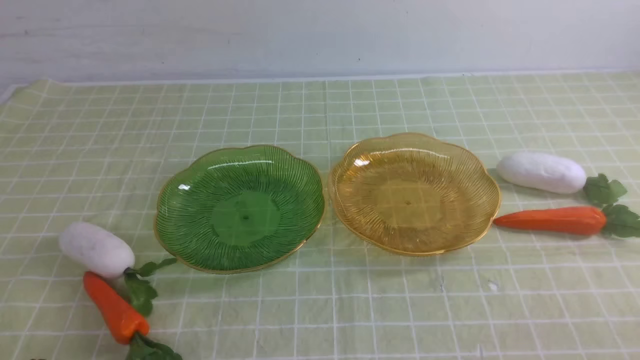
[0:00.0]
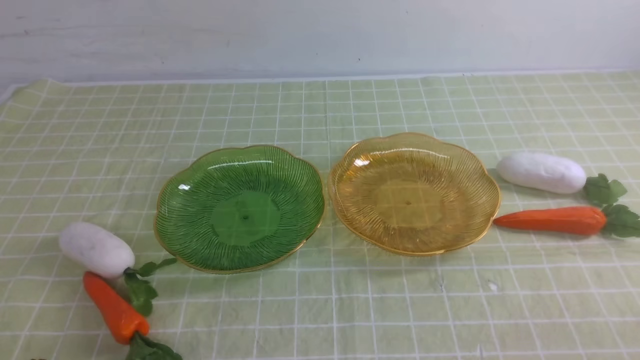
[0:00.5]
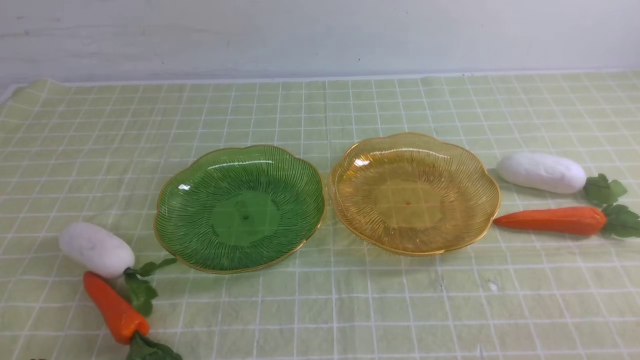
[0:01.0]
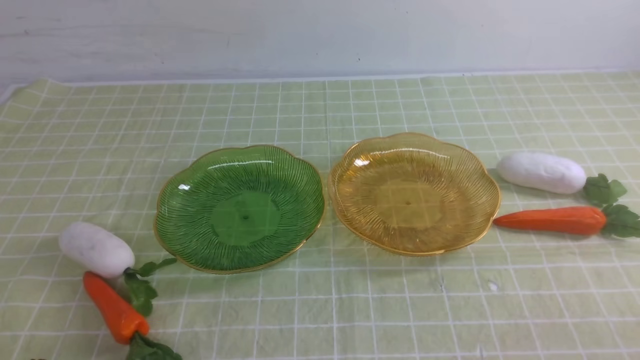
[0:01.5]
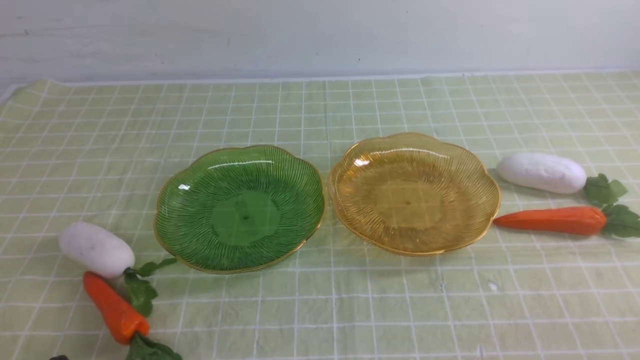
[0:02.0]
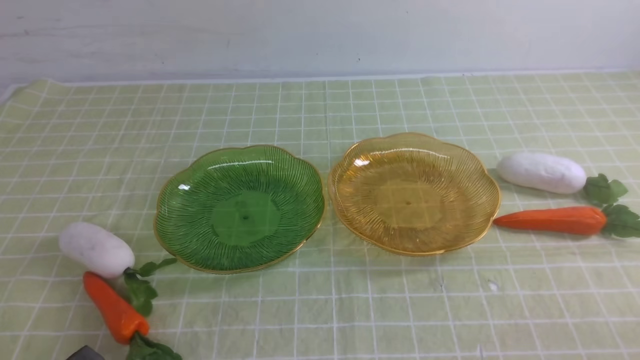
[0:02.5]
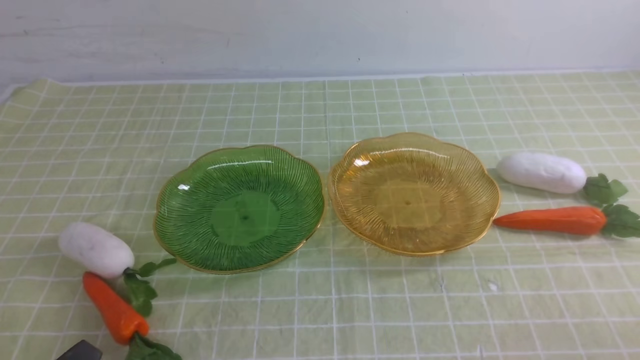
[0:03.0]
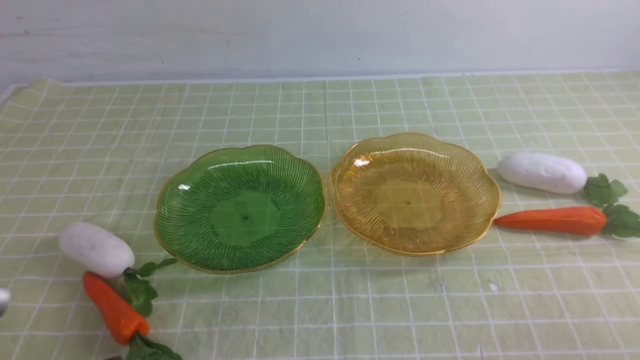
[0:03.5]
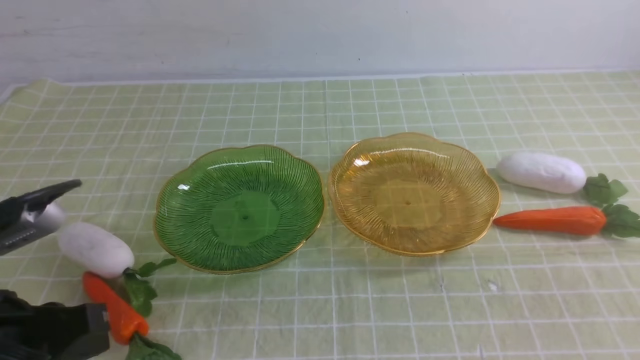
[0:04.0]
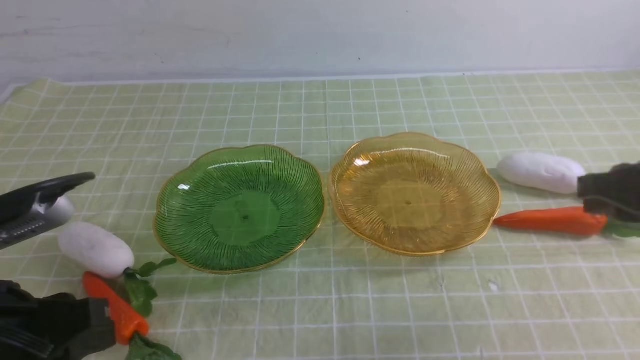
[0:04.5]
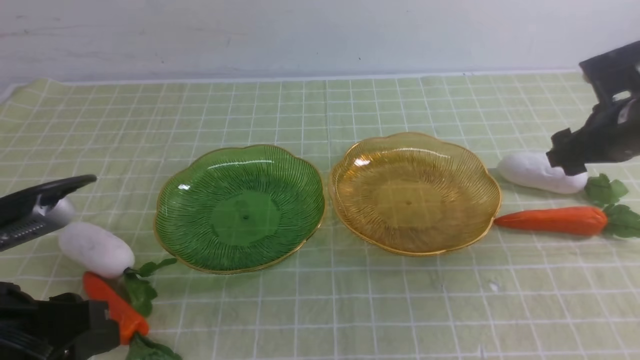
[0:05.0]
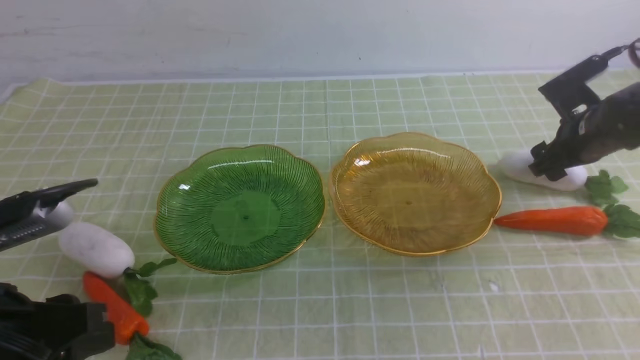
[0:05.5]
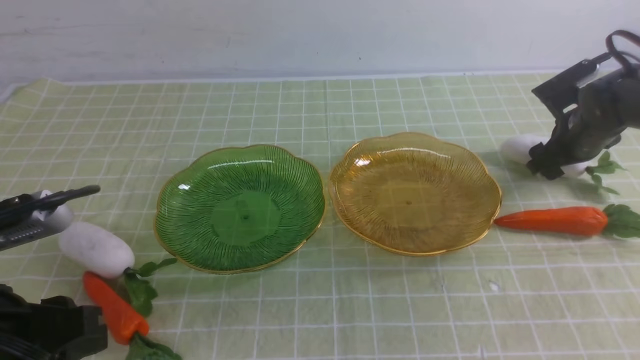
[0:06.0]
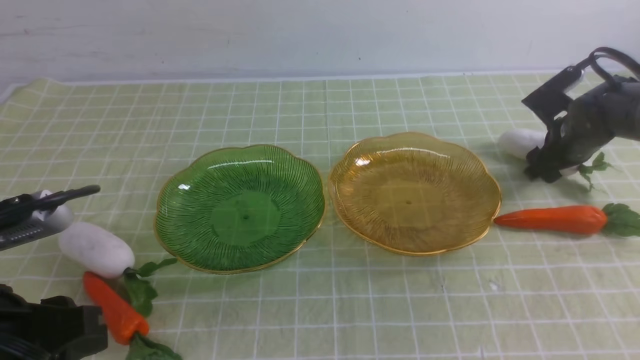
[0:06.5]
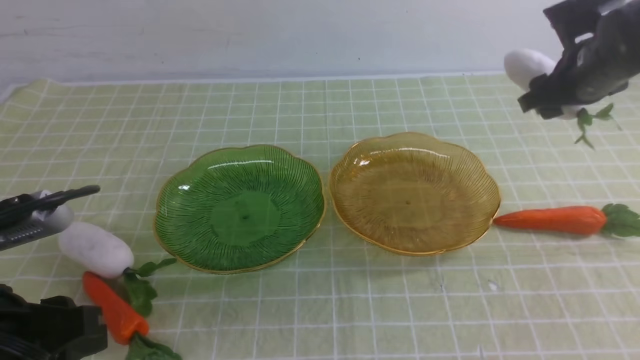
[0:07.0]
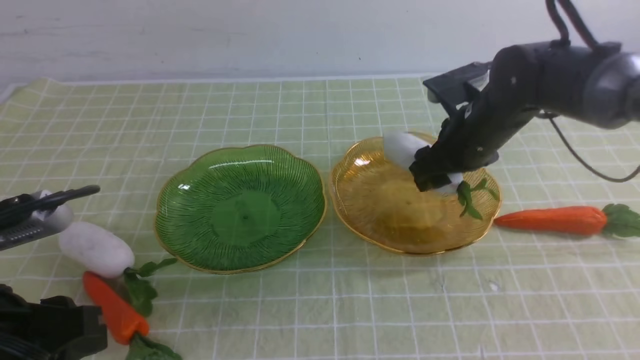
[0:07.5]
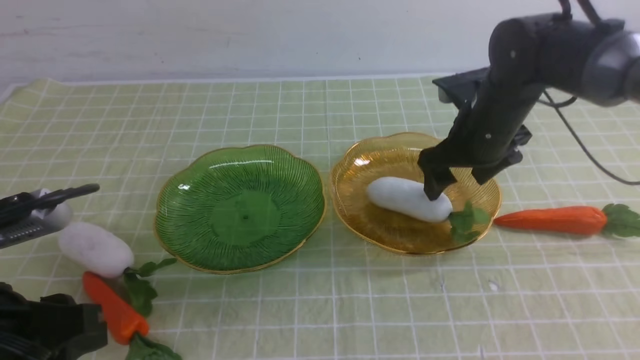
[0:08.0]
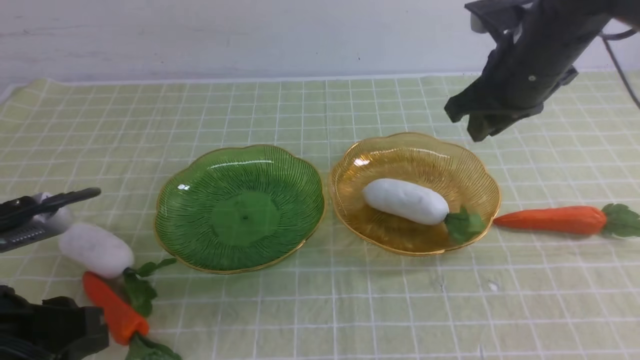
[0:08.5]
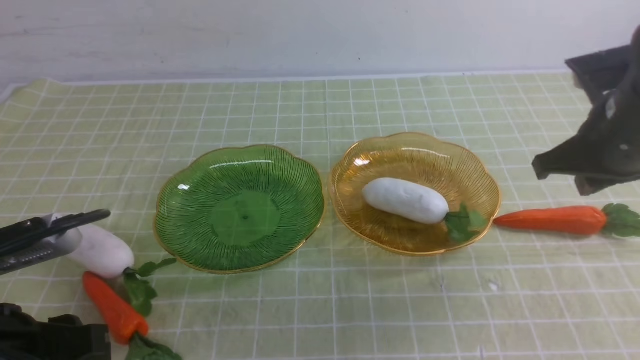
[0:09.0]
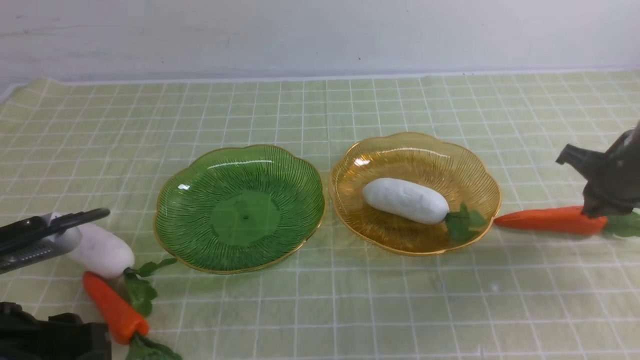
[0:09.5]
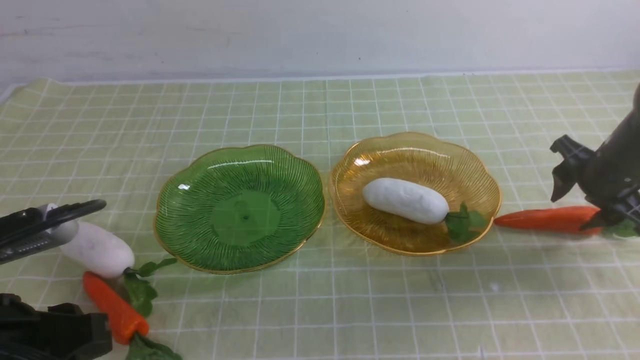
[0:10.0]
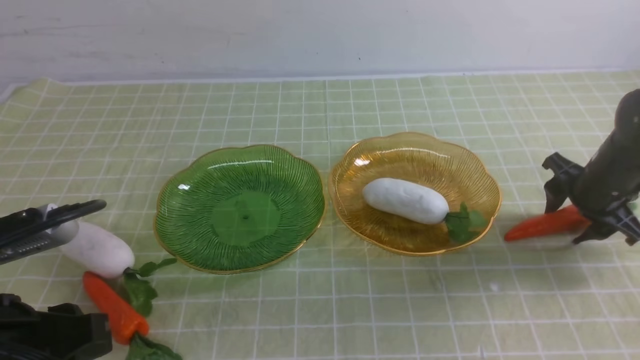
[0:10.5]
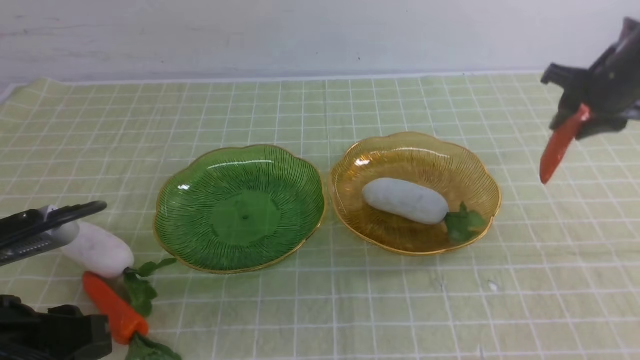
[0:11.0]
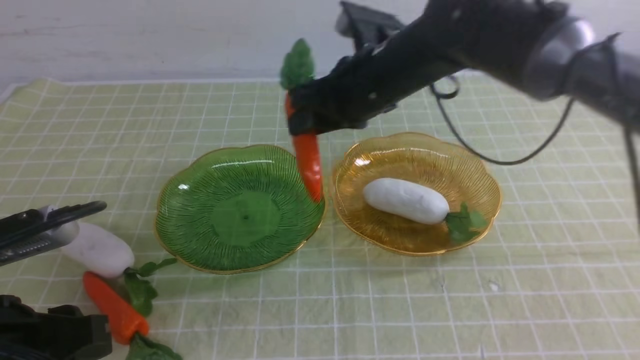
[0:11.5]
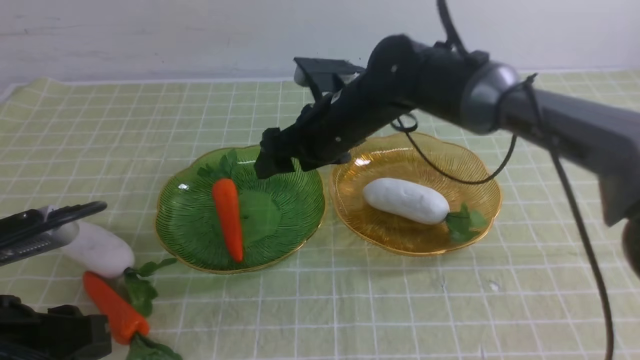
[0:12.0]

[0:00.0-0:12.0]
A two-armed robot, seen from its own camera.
Step, 0:00.0 to 0:08.5: use the right arm to grab a radish and put it into the right plate.
0:02.0 to 0:04.0: The left gripper travels upward and forward by some 10 cm.
0:04.0 to 0:06.0: The right gripper shifts some 35 cm forward, and opens. The left gripper opens.
0:06.0 to 0:08.0: The right gripper moves to the left and upward, some 20 cm.
0:08.0 to 0:10.0: The right gripper travels to the right and downward by some 15 cm, and closes and opens again.
0:10.0 to 0:12.0: The right gripper moves to the left, about 30 cm.

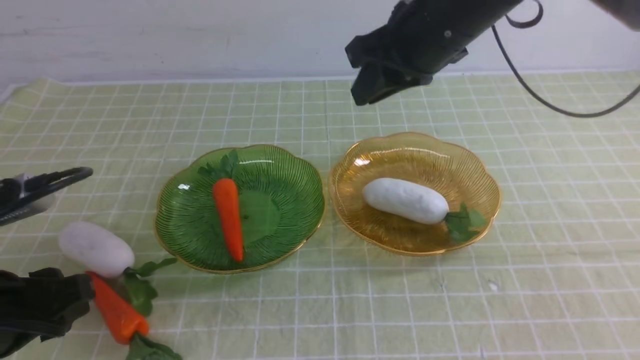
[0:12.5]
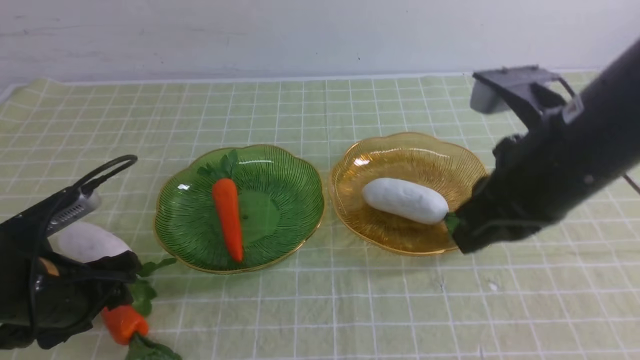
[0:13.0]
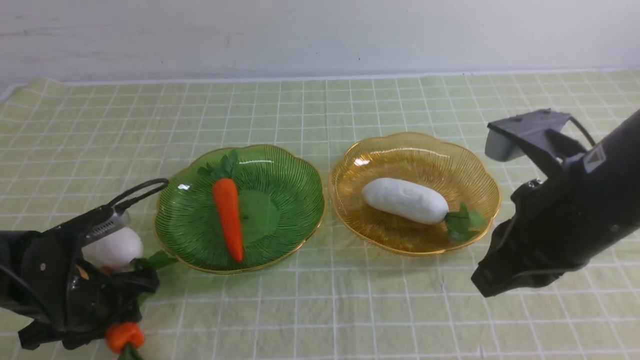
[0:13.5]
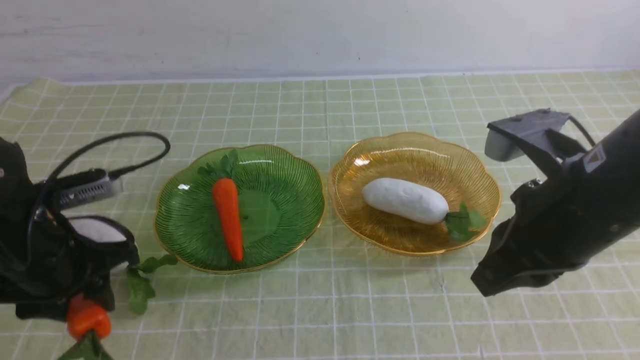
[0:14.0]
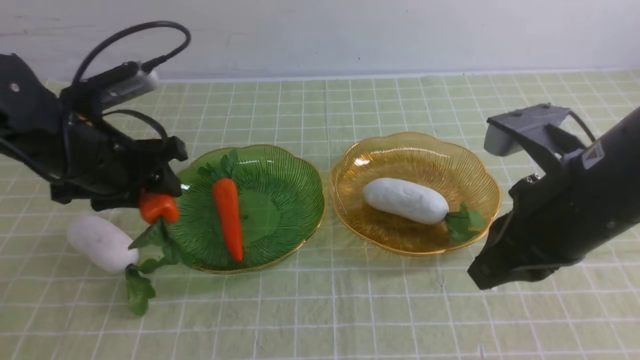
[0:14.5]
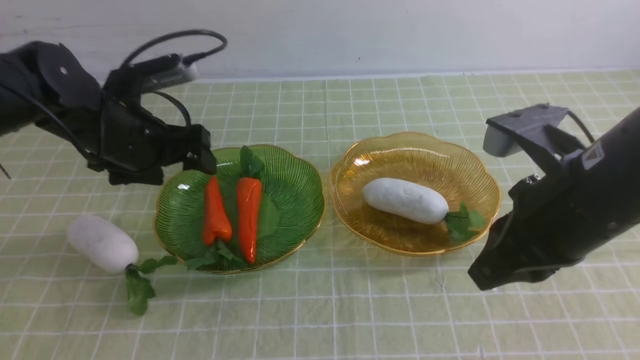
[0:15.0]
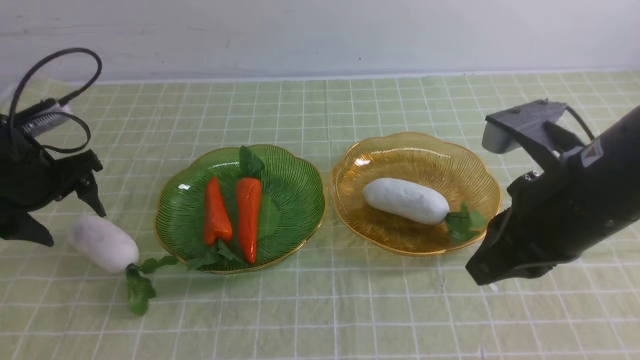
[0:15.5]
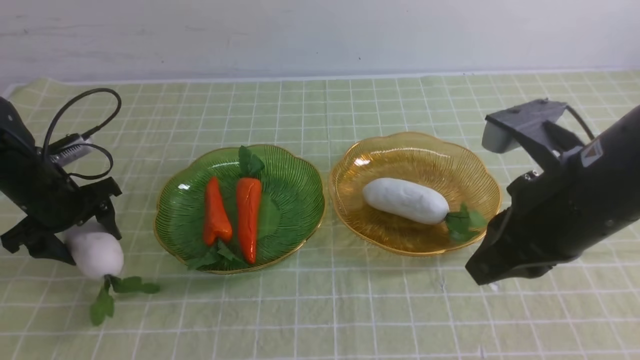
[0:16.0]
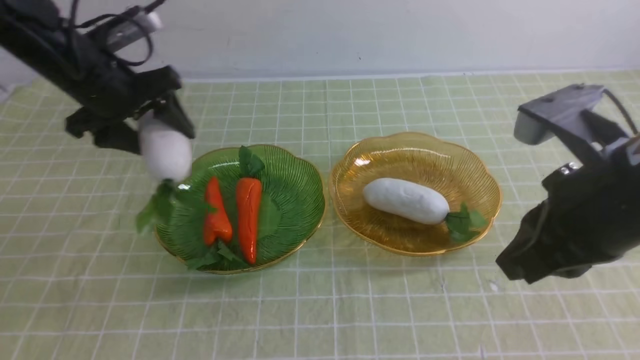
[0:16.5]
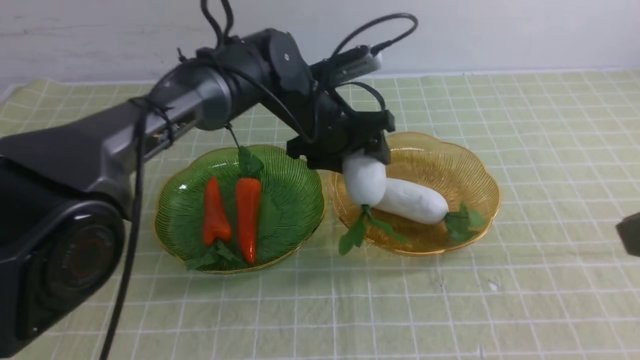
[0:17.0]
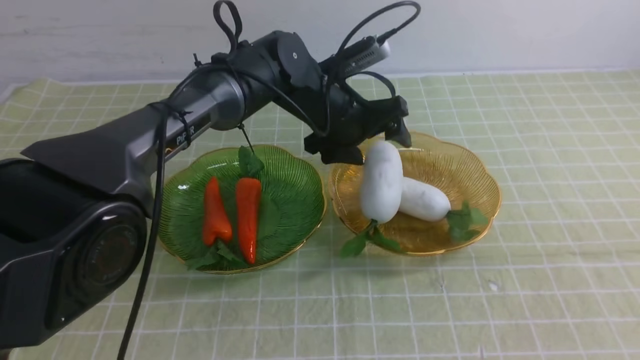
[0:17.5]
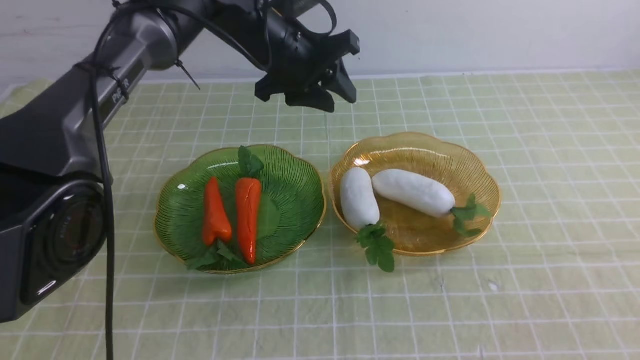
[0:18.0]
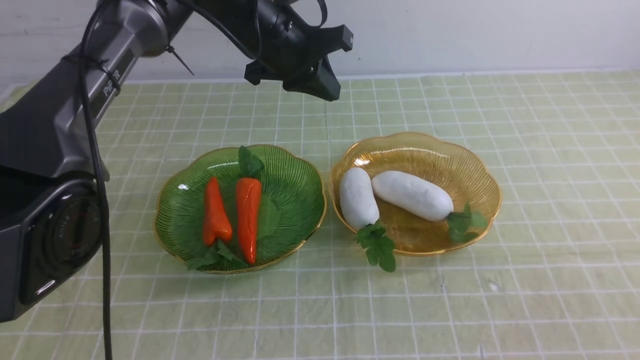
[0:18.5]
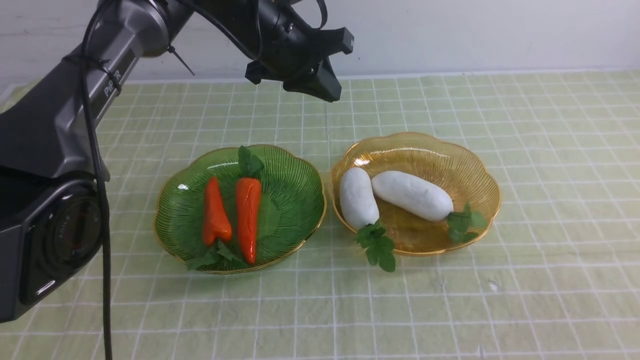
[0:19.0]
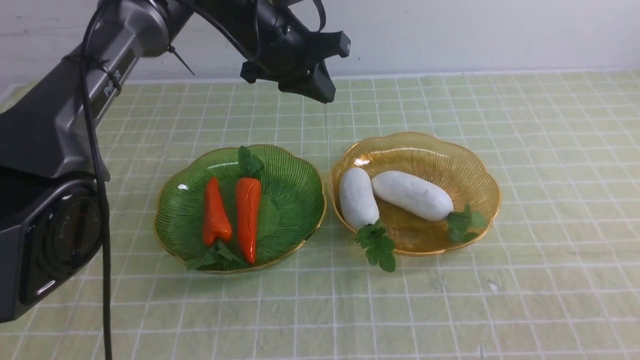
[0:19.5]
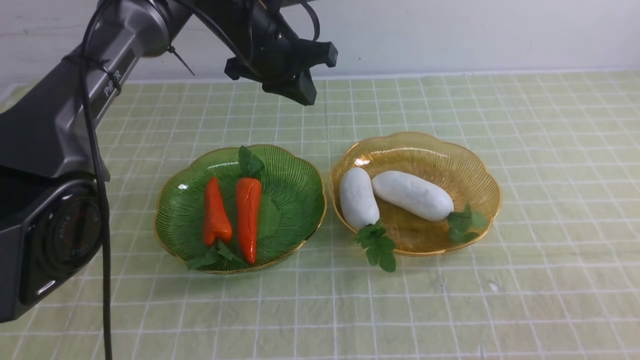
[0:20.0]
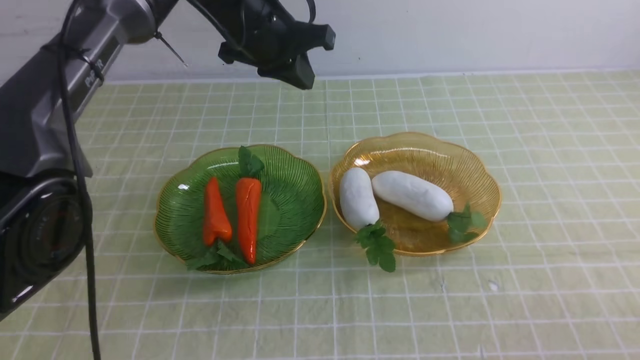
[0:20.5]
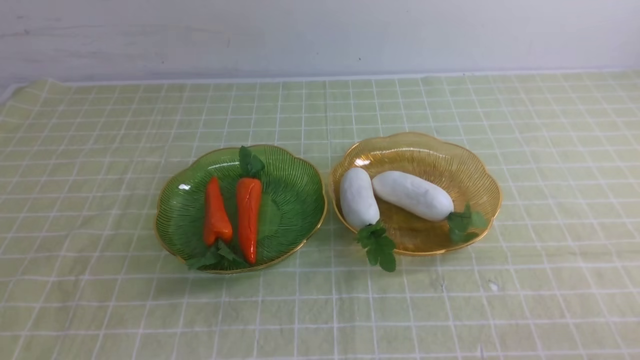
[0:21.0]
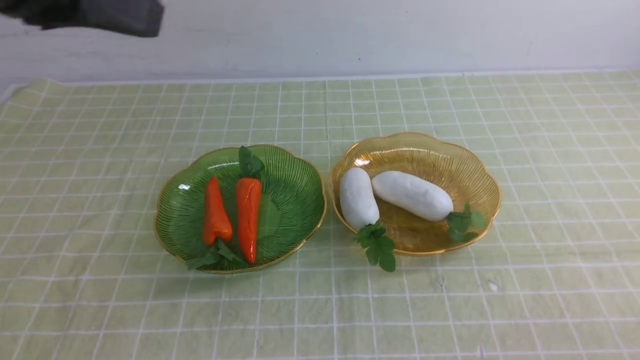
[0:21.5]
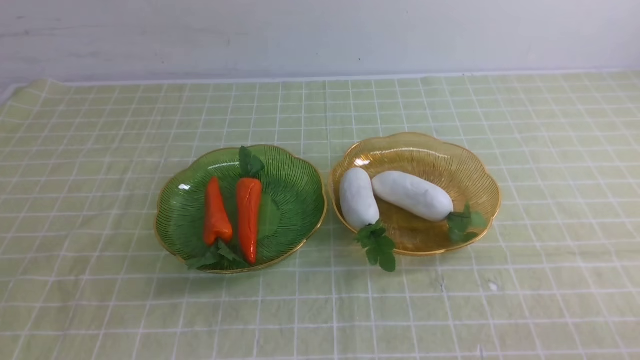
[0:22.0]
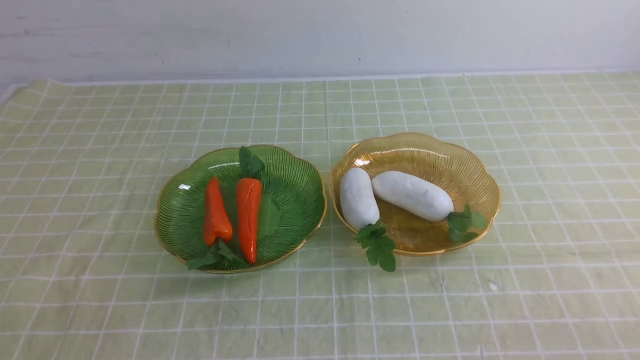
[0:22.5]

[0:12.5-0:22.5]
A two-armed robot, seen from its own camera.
Step, 0:14.5 to 0:16.0: use the left arm to grab a carrot and put it into the left plate.
Step, 0:16.5 to 0:17.5: use the left arm to grab a radish and put it into the right plate.
0:12.5 to 0:14.5: The left gripper heads forward, covering some 15 cm. Meanwhile the right gripper goes roughly 15 cm backward and to the right.
0:14.5 to 0:16.5: The left gripper shifts approximately 10 cm forward, and reaches roughly 10 cm to the left, then returns.
0:16.5 to 0:18.5: The right gripper is displaced backward, to the right and downward by roughly 20 cm. Meanwhile the left gripper is displaced to the right by approximately 15 cm, and closes.
0:18.5 to 0:20.5: The left gripper changes place by approximately 5 cm, while the right gripper travels downward by about 10 cm.
0:20.5 to 0:22.5: The left gripper heads backward, covering approximately 40 cm.
